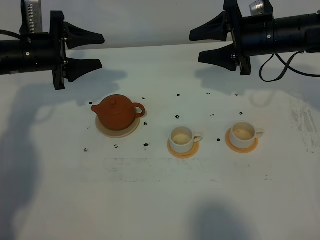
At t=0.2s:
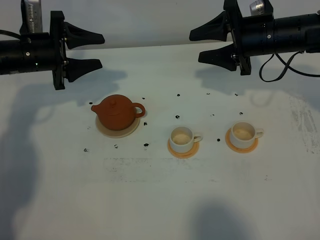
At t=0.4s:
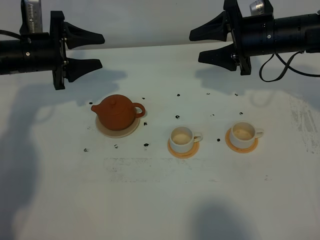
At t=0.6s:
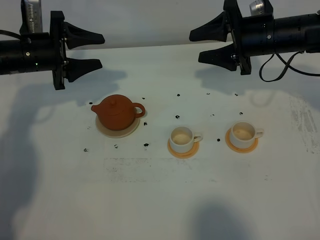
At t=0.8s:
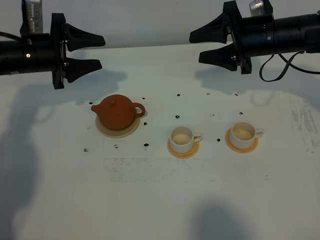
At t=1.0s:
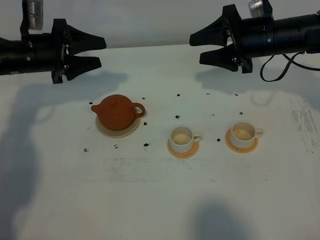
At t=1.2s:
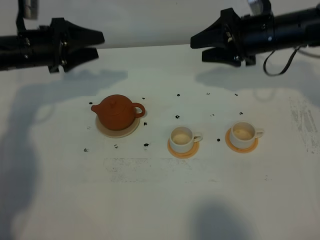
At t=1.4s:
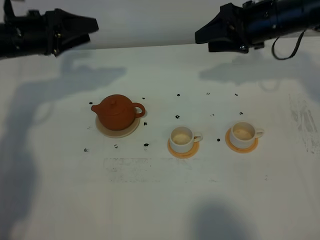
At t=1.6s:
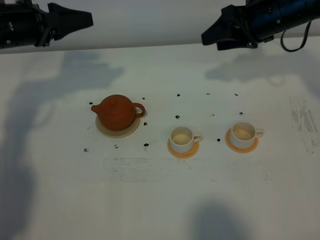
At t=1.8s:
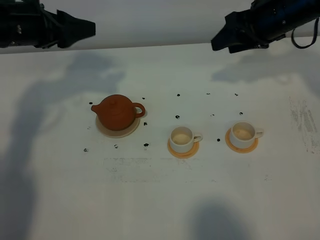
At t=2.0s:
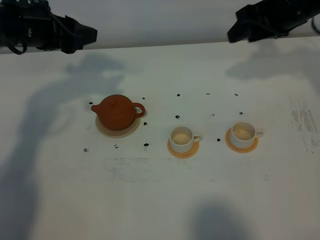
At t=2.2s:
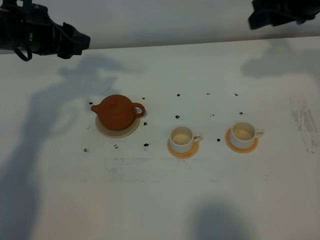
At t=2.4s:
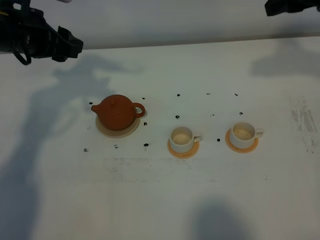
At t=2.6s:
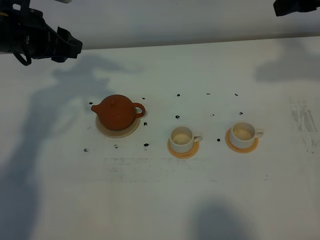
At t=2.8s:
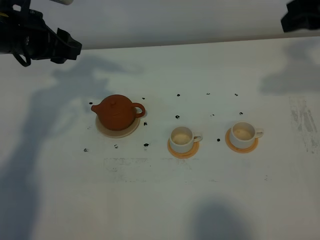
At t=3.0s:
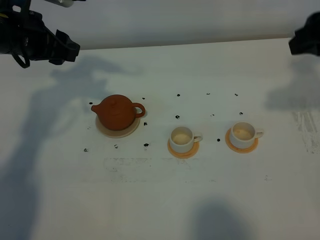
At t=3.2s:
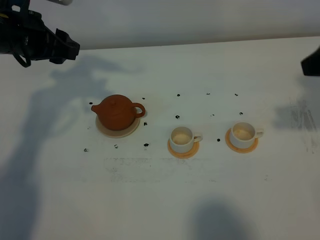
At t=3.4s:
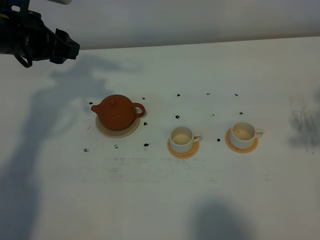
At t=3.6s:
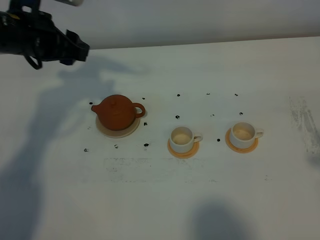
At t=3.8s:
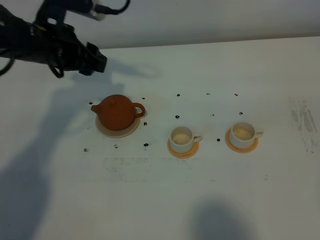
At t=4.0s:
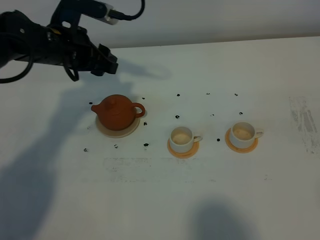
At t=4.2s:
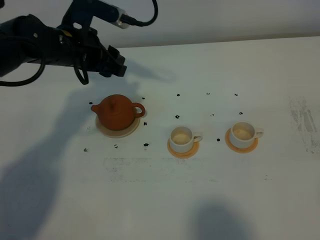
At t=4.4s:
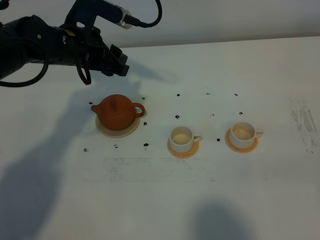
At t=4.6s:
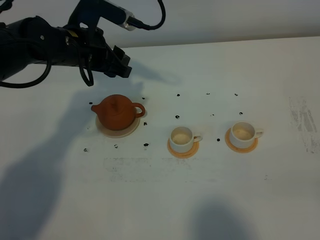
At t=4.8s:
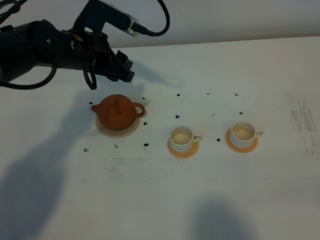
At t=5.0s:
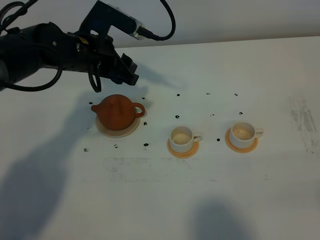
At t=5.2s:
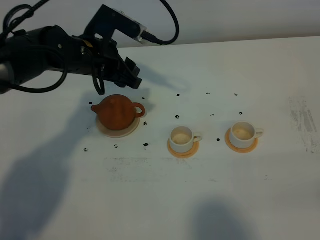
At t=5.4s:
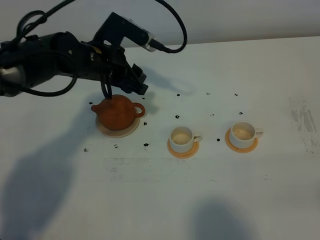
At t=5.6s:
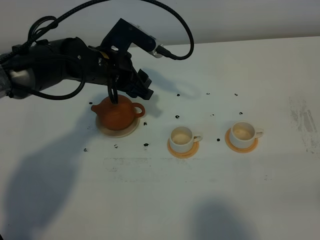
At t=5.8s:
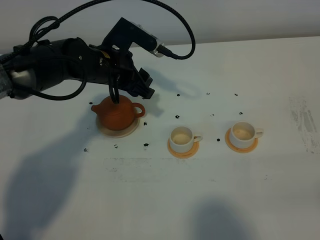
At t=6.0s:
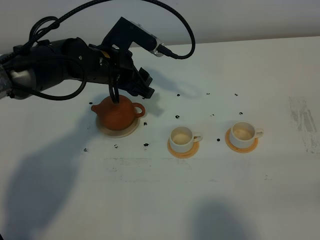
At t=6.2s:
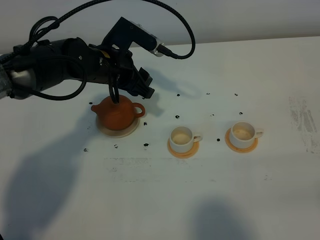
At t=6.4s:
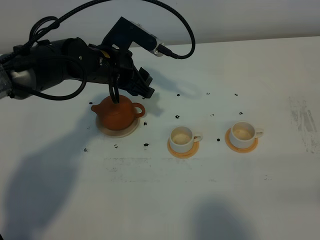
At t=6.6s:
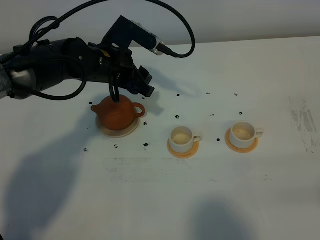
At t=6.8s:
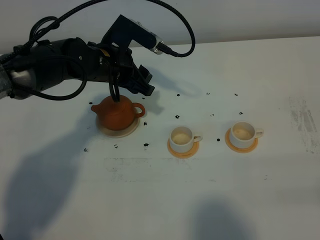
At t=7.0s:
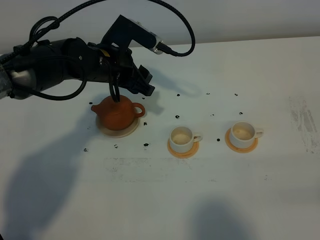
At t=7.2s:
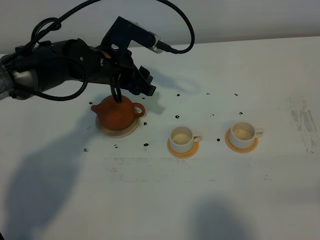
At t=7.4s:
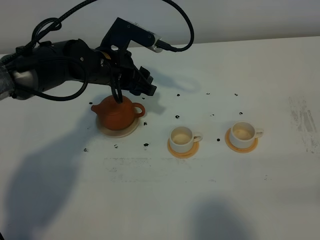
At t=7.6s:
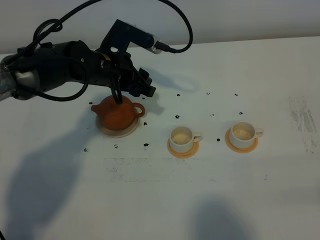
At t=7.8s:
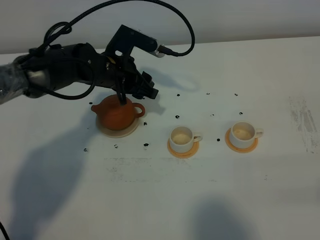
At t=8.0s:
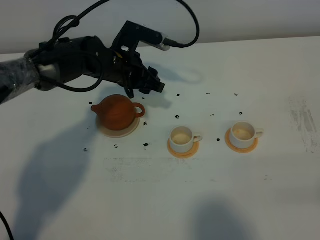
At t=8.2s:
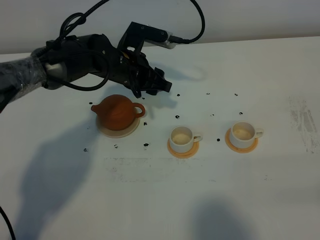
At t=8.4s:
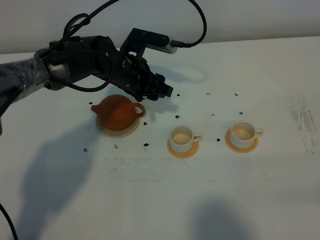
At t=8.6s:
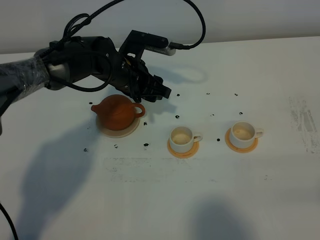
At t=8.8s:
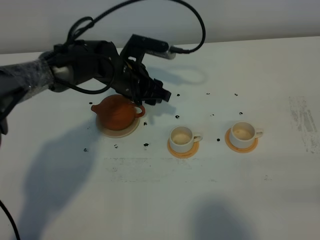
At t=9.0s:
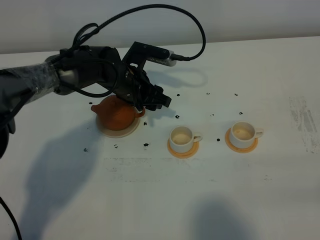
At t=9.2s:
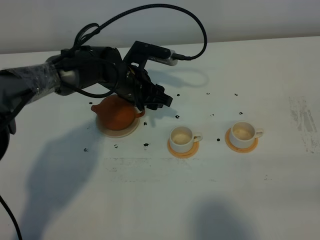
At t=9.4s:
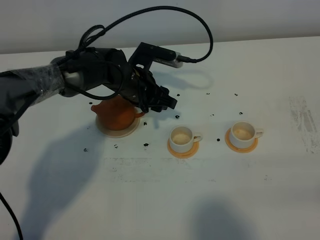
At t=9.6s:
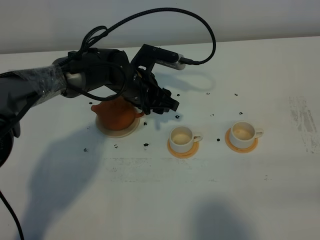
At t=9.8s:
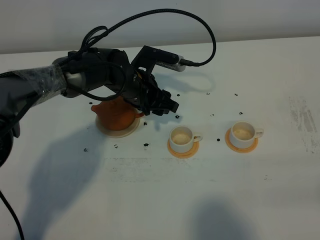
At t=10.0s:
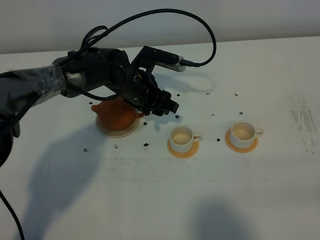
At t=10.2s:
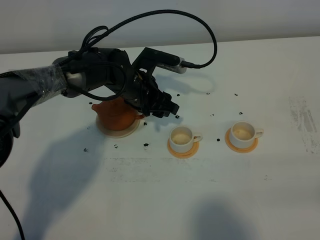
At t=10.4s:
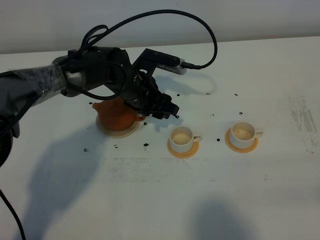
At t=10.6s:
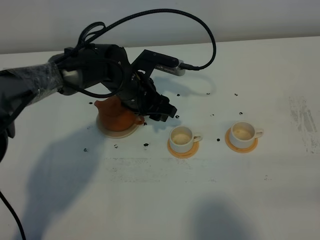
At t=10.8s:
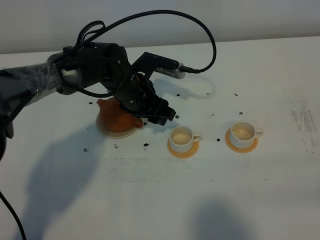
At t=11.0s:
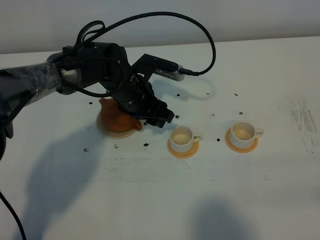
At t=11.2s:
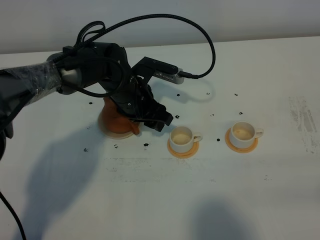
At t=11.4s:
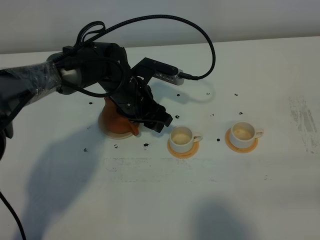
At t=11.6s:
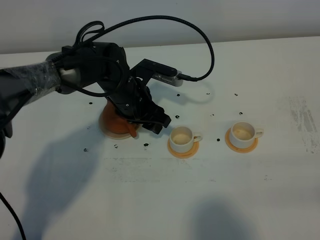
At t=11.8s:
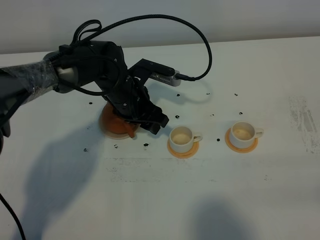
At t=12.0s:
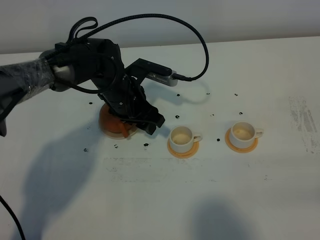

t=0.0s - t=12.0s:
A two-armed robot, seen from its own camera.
Task of the whole recording: grasp the brown teapot and pour the tea into the two white teacups one by one, put the brown teapot back in its original place.
t=0.0s - t=1.6s: The left gripper travels upward by some 10 cm.
t=1.6s - t=3.0s: The right gripper goes some 20 cm backward and upward.
t=3.0s - t=4.4s: The left gripper shifts about 10 cm to the right; the right gripper shifts approximately 30 cm backward.
t=4.4s - t=6.0s: The right gripper is displaced downward by about 5 cm, and closes up; the left gripper ends up roughly 5 cm from where it was.
t=6.0s - t=7.6s: There are only small adjustments of the grippers.
t=7.6s - t=9.0s: The left gripper moves some 5 cm.
t=9.0s - t=12.0s: There are only small adjustments of the grippers.

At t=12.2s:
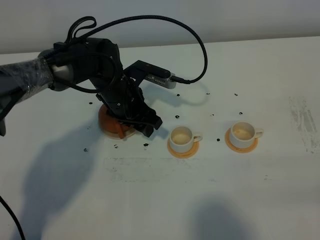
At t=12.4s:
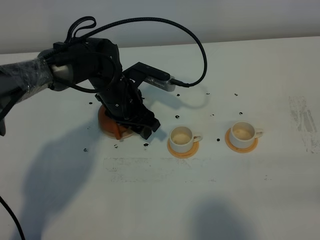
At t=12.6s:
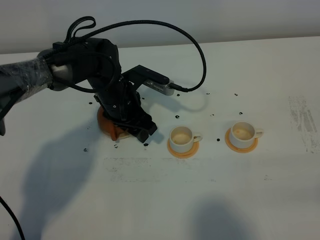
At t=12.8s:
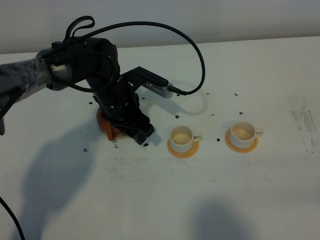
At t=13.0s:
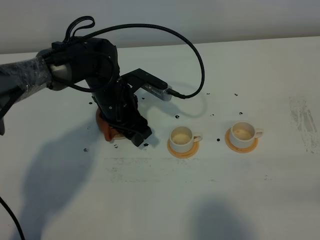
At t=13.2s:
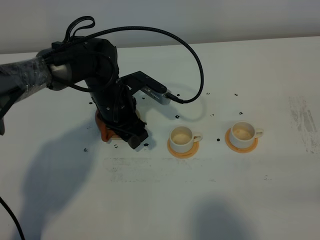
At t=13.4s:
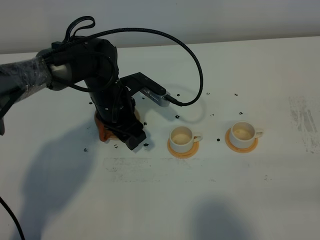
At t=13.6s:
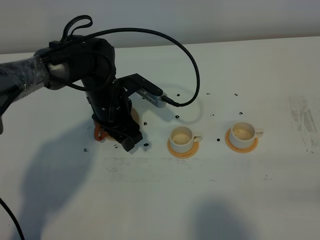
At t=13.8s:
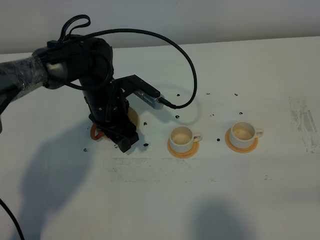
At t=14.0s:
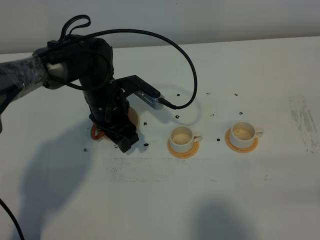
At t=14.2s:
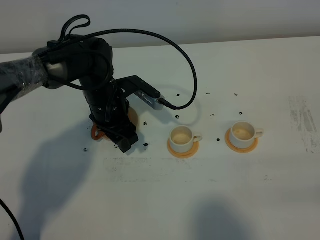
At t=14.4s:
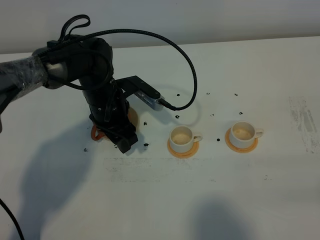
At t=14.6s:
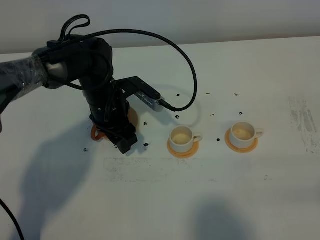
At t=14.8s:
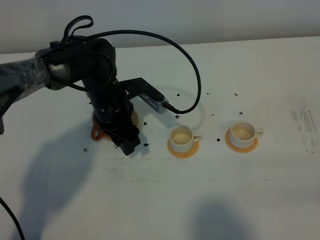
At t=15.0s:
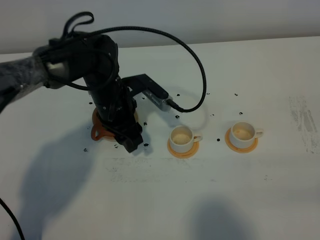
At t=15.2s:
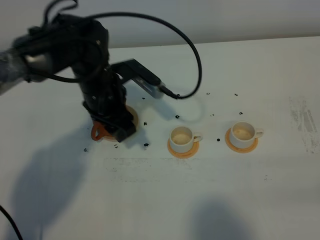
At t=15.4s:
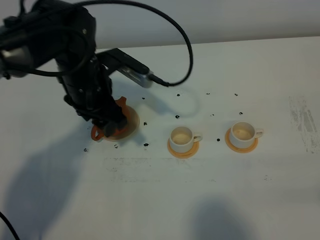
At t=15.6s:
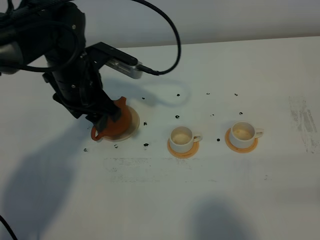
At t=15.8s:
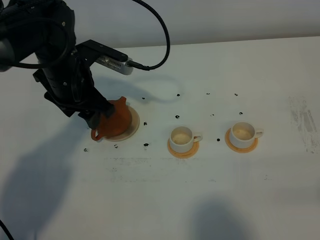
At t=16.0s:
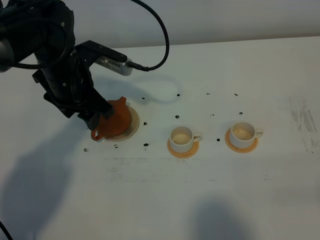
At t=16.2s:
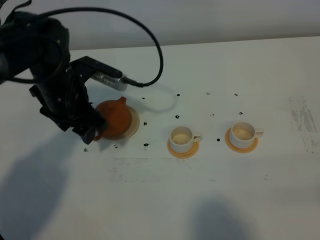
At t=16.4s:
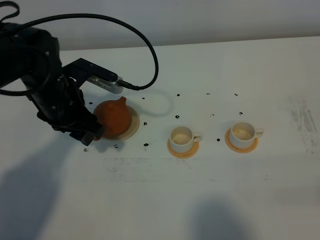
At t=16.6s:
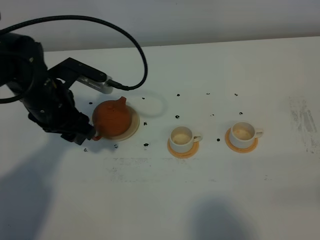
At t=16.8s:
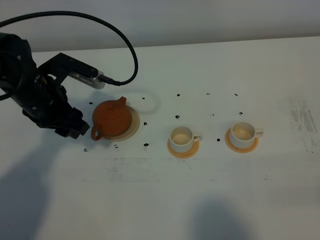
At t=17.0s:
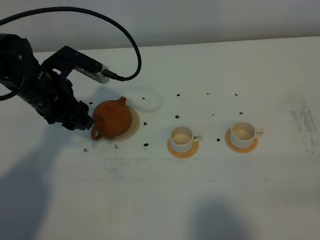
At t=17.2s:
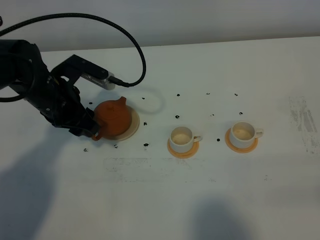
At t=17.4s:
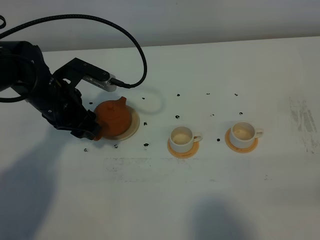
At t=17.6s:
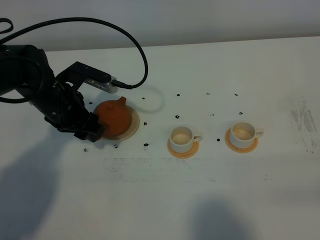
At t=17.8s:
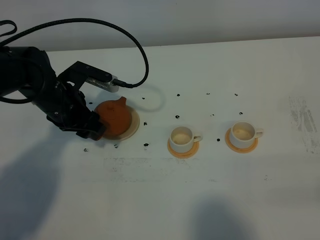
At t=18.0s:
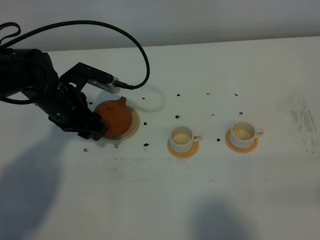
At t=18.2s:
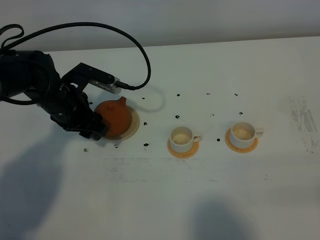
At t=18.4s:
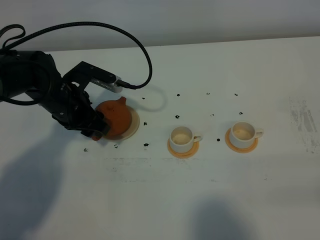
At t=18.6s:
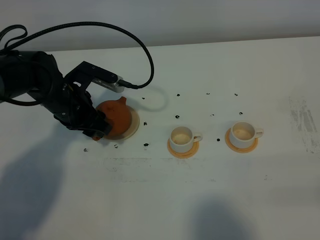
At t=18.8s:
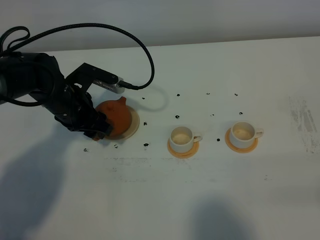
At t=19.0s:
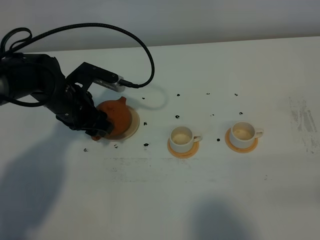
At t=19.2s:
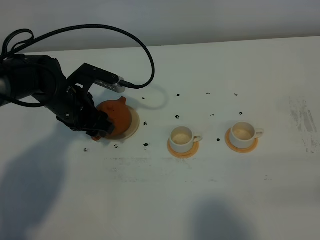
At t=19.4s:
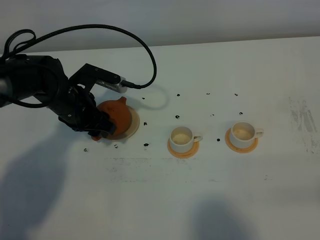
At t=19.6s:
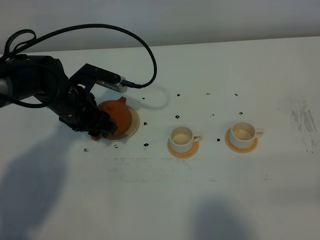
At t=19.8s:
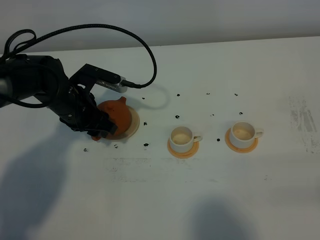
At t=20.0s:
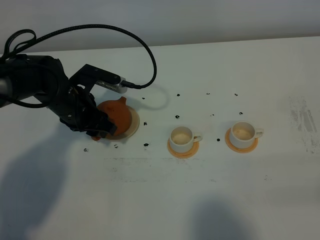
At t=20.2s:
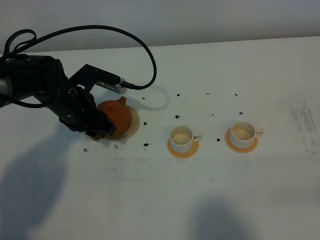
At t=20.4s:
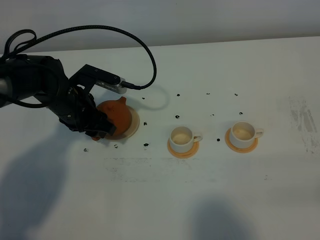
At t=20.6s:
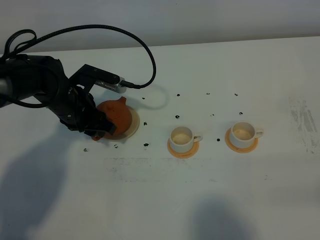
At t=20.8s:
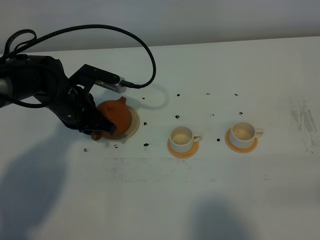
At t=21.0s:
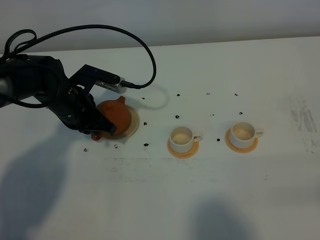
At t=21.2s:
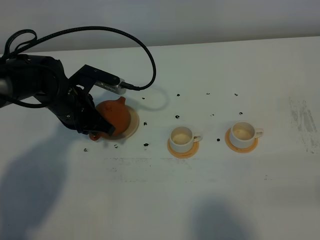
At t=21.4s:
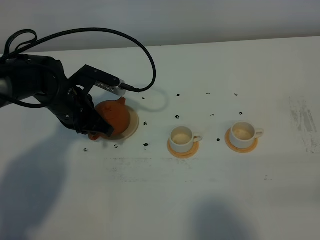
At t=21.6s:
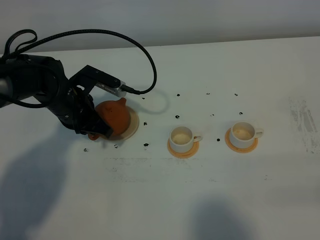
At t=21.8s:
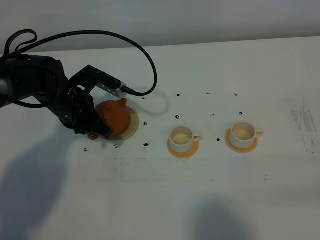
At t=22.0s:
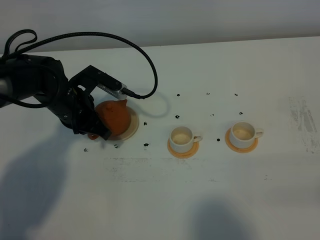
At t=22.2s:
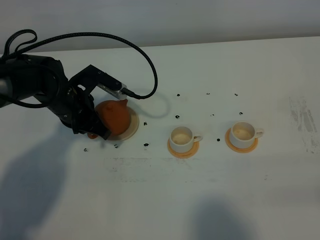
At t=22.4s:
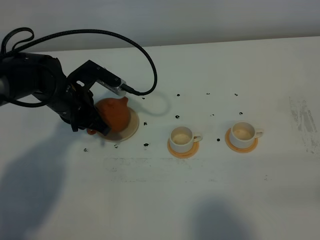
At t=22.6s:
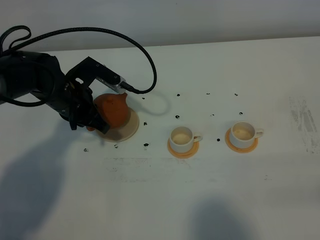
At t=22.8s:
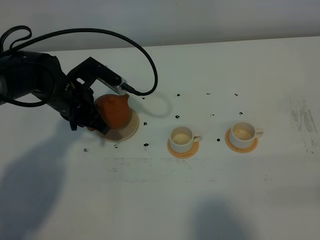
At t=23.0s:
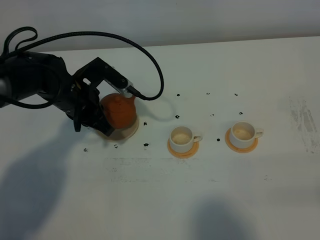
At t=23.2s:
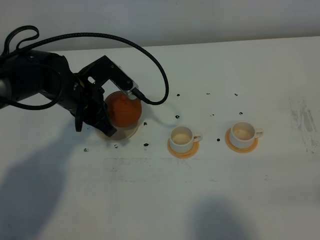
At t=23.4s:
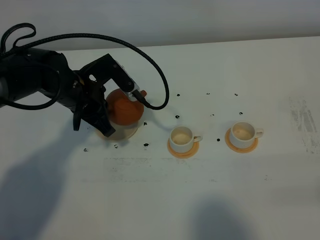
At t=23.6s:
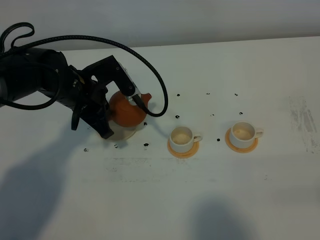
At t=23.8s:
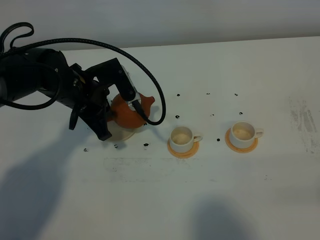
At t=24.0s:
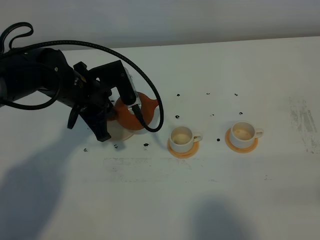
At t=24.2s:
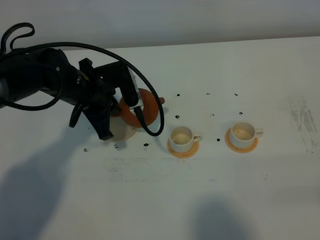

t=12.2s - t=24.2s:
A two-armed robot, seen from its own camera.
Task of the whole recording: grasp the brown teapot and pour the tea into the two white teacups one by one, put the brown teapot back in its original place.
Step, t=12.2s - t=23.2s: Pick up the teapot with the left gripper.
t=12.2s - t=13.8s: The grippers make only small movements.
t=13.8s - t=15.2s: The left gripper shifts approximately 5 cm upward.
t=15.2s - t=16.6s: The left gripper travels to the left by roughly 10 cm.
t=16.6s - t=18.2s: The left gripper is displaced downward by some 5 cm.
t=18.2s - t=19.8s: The grippers move only a little.
t=19.8s - t=21.2s: The left gripper closes its fingers.
t=21.2s - t=22.6s: The grippers move only a little.
